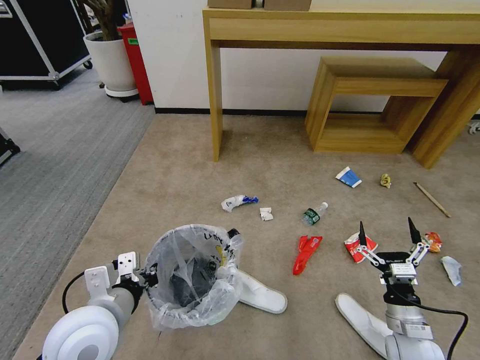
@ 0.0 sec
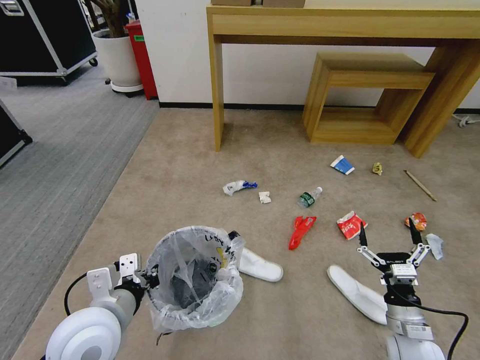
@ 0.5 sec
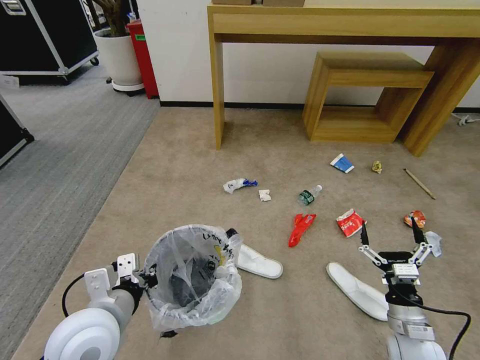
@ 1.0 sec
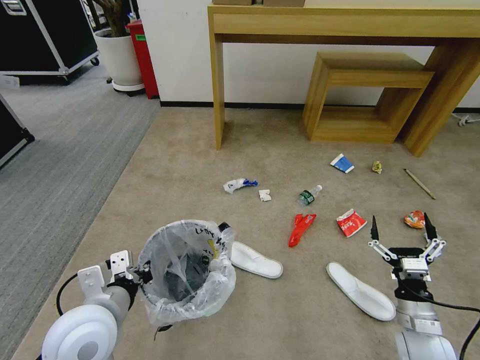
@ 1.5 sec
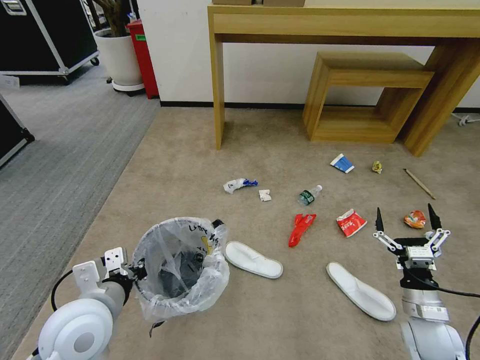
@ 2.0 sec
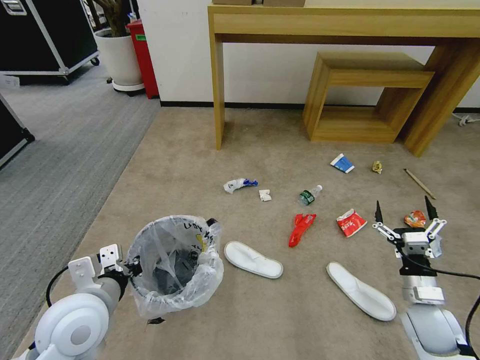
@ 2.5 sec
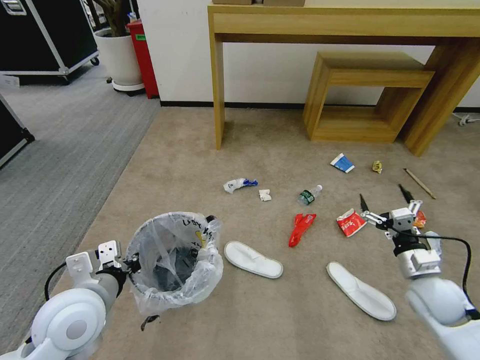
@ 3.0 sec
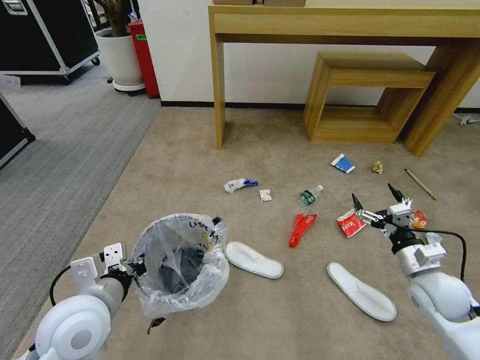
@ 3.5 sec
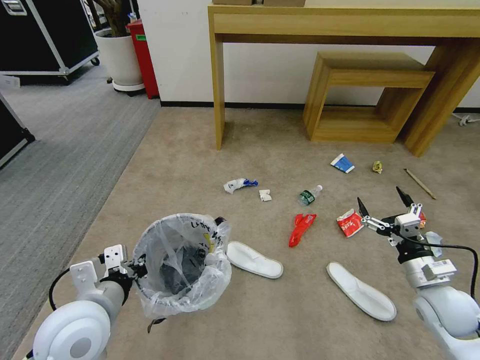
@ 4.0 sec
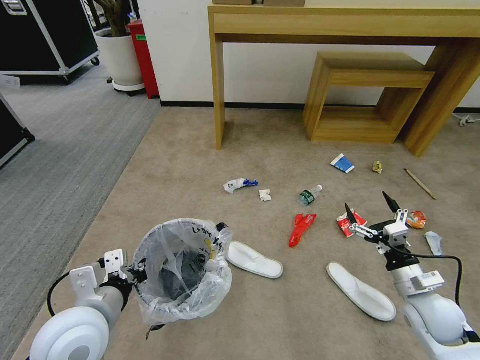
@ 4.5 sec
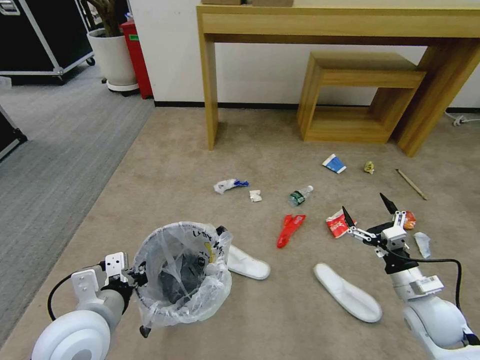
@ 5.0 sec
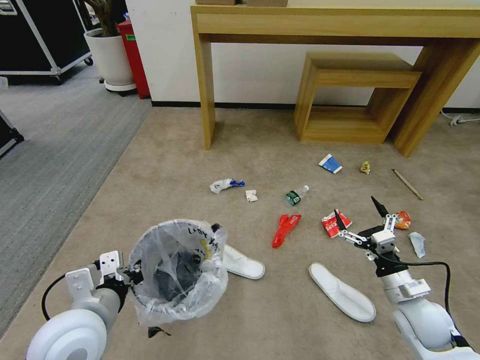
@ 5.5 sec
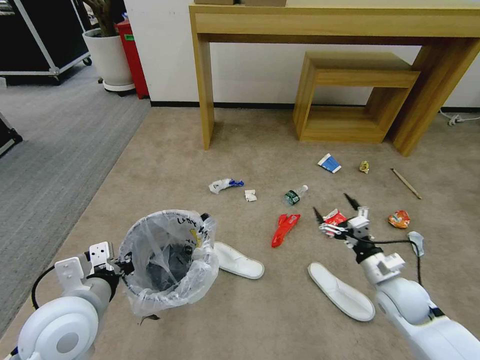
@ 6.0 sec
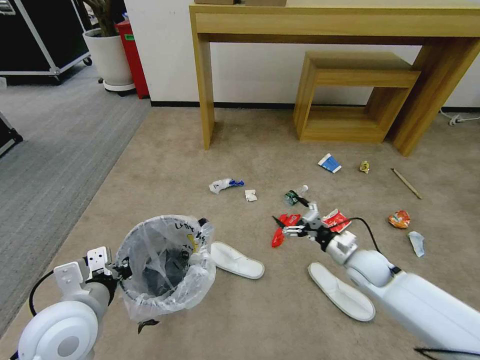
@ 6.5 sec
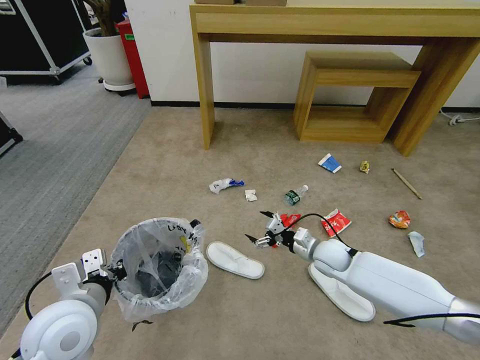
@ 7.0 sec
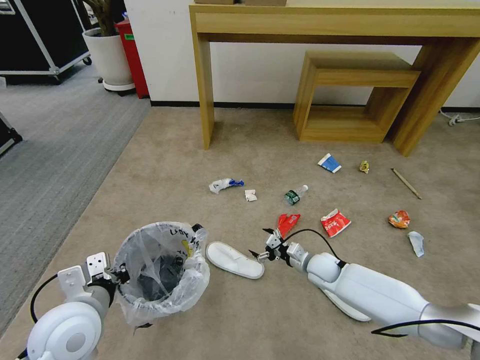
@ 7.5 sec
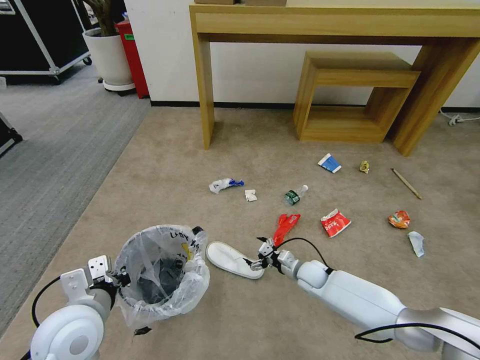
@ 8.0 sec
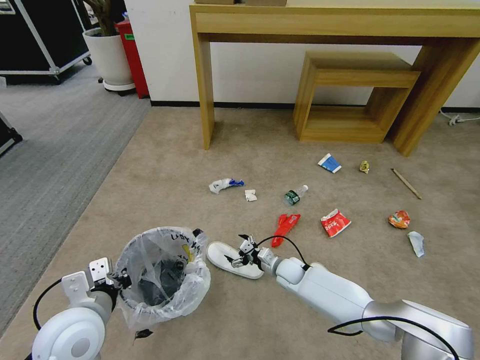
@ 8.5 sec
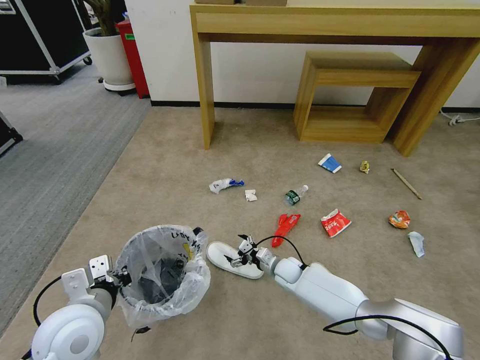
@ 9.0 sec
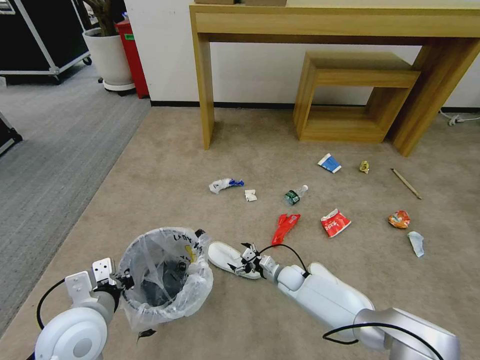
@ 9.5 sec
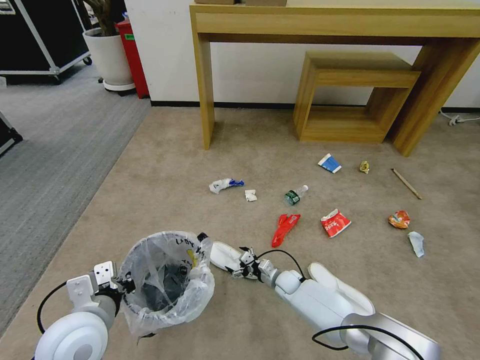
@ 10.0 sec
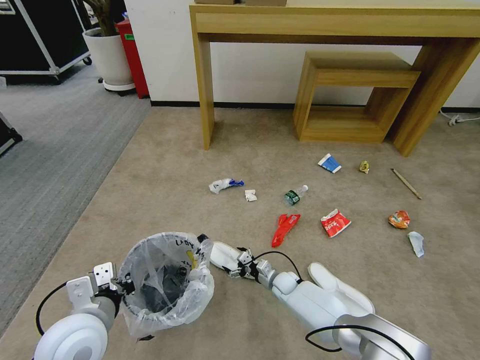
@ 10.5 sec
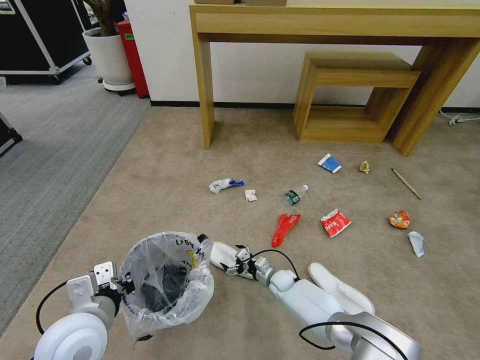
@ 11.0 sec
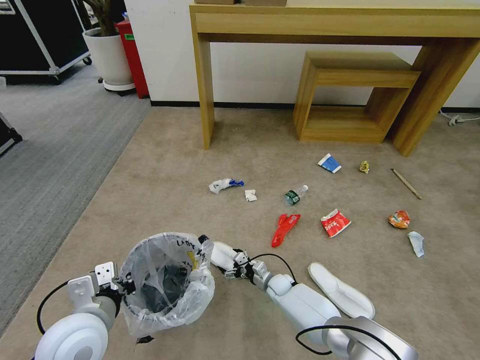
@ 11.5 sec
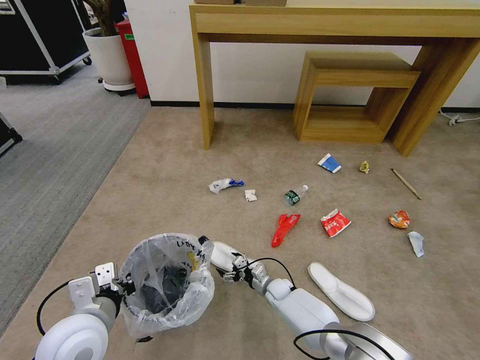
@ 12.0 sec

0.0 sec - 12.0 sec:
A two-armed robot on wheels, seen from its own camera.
Task of the whole recording: Pick up the trash bin and place the garbage on the floor into it.
2.0 sec - 4.0 sec: The right gripper is displaced upward by some 5 cm.
4.0 sec - 6.0 sec: The right gripper goes approximately 5 cm to the left.
6.0 sec - 8.0 sec: The right gripper goes some 25 cm downward, to the left and forward.
8.0 sec - 10.0 sec: The right gripper goes roughly 10 cm downward and to the left.
10.0 sec - 12.0 sec: The grippers make only small movements.

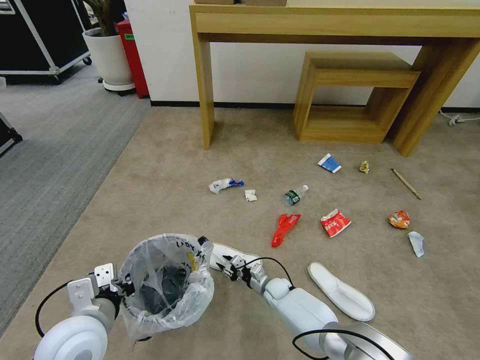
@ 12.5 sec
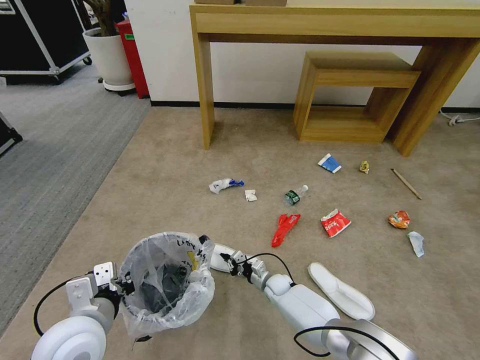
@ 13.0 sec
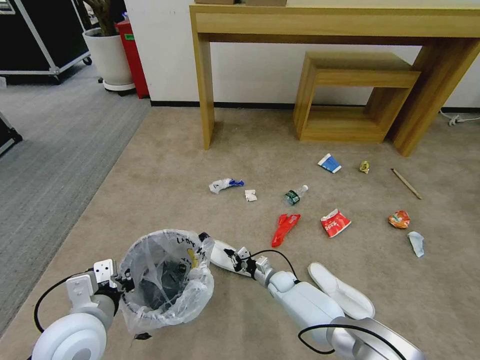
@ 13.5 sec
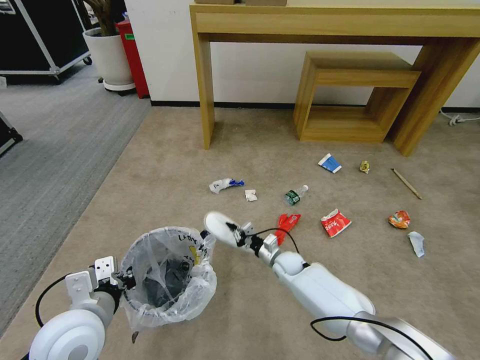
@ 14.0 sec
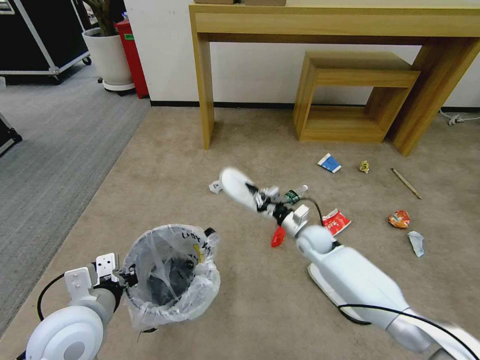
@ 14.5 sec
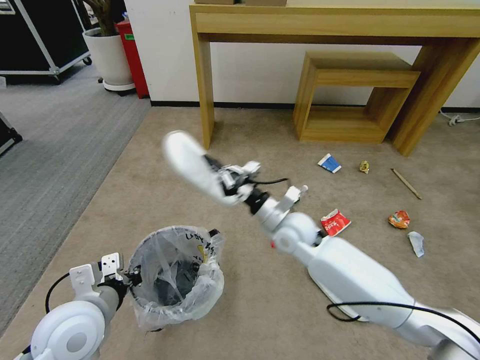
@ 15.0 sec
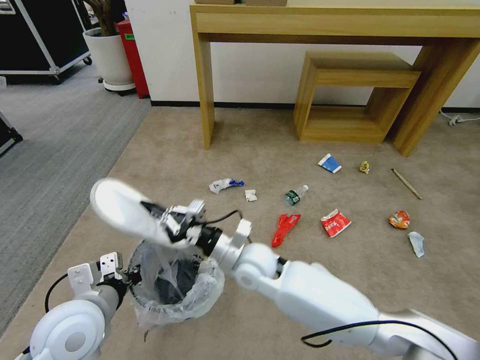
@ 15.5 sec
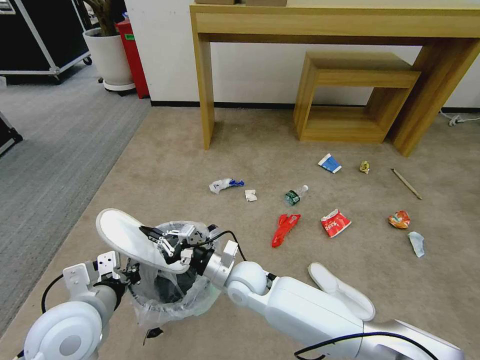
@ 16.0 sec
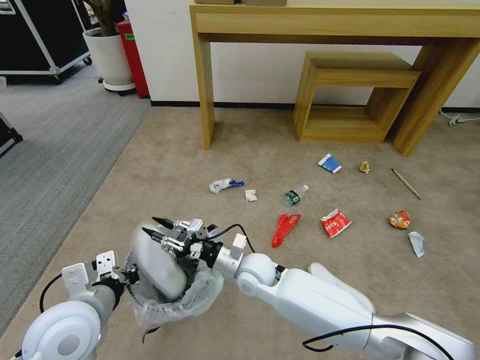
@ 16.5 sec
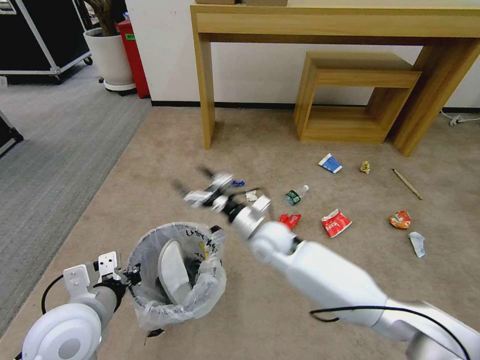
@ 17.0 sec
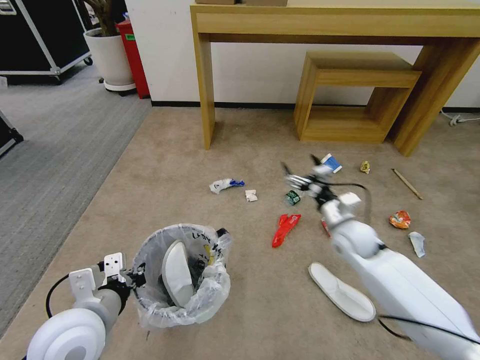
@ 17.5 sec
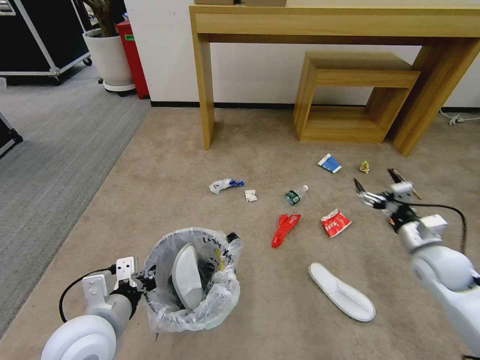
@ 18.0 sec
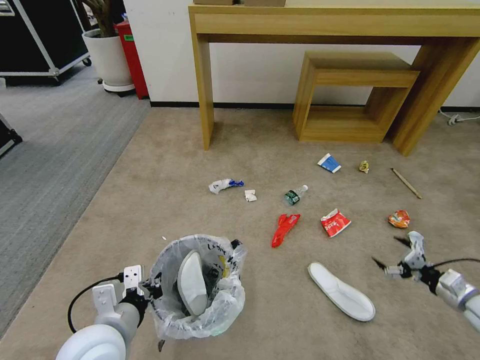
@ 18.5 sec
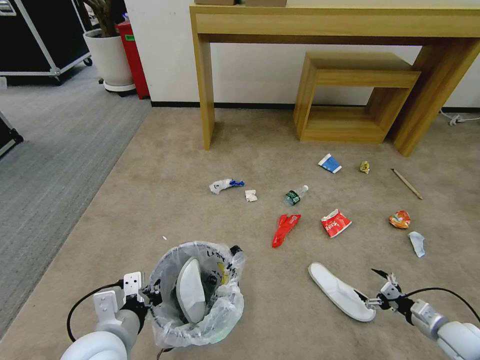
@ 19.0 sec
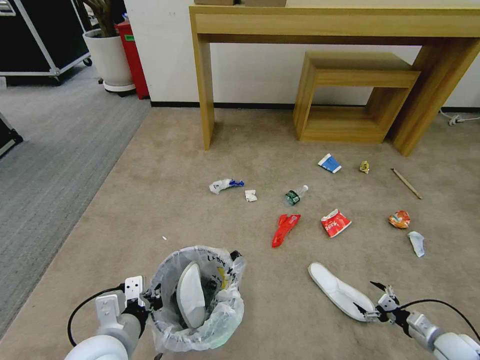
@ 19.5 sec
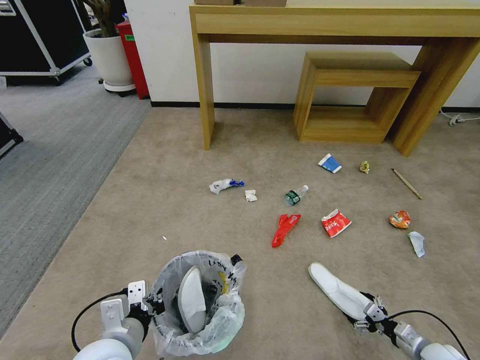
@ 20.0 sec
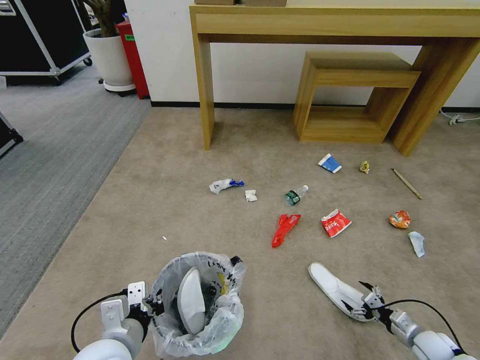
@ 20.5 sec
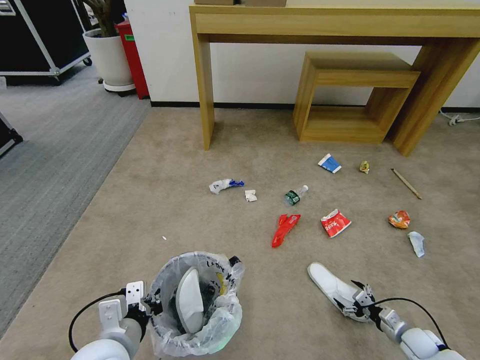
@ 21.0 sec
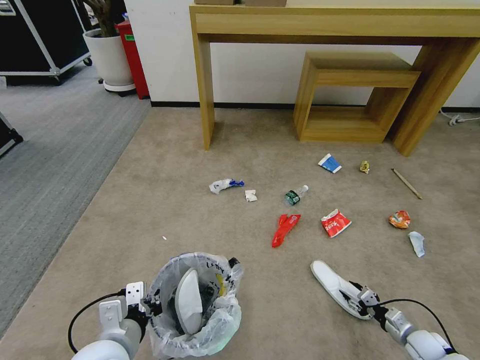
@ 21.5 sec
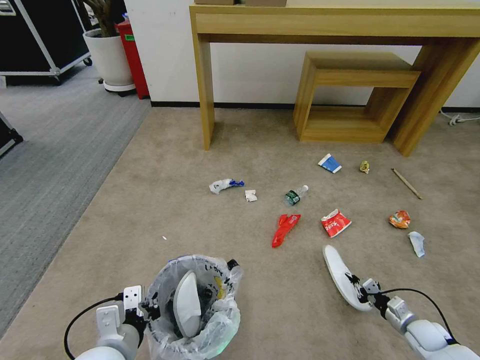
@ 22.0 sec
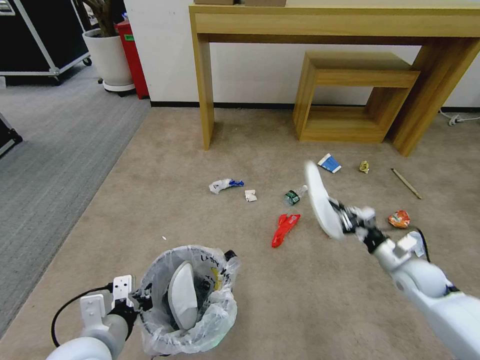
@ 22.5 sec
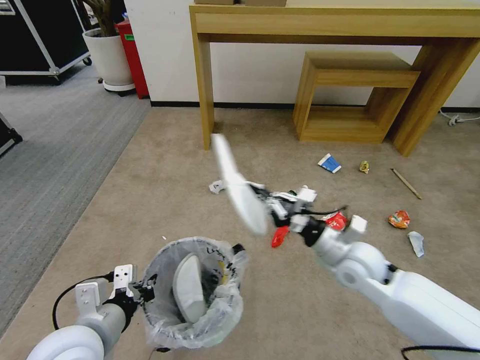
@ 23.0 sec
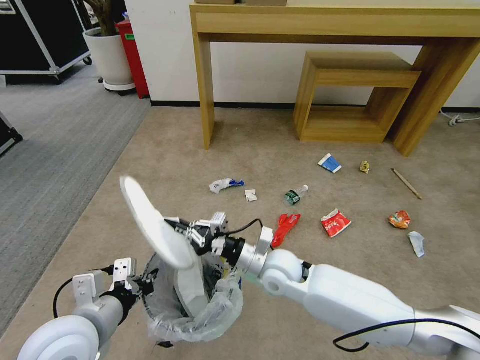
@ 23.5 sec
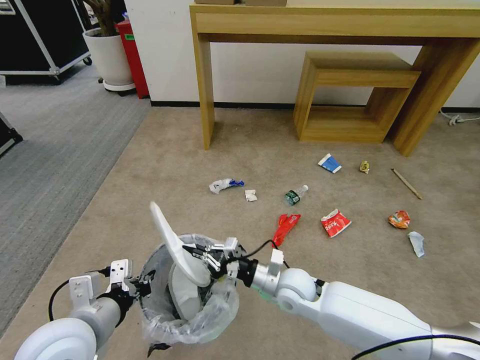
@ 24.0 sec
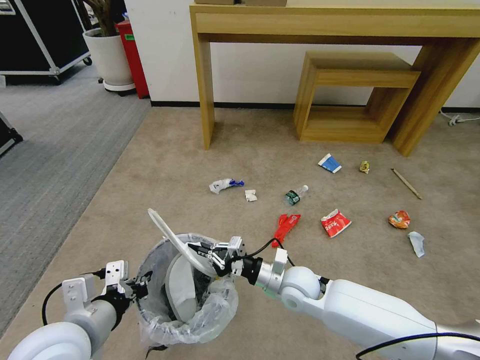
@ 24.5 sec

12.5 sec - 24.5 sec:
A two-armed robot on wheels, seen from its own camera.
Task of the whole recording: Pick up the trash bin and place the garbage on the floor into it.
12.5 sec - 14.5 sec: The right gripper goes roughly 20 cm upward and to the right, and closes.
14.5 sec - 16.5 sec: The right gripper is displaced to the left and backward by about 20 cm, and opens up.
16.5 sec - 18.5 sec: The left gripper shifts by about 5 cm. Meanwhile the right gripper is displaced to the right by approximately 50 cm, and opens.
18.5 sec - 20.5 sec: The right gripper moves downward, some 15 cm.
20.5 sec - 22.5 sec: The right gripper goes some 20 cm upward, forward and to the left, and closes its fingers.
22.5 sec - 24.5 sec: The left gripper moves approximately 5 cm; the right gripper shifts about 30 cm to the left.

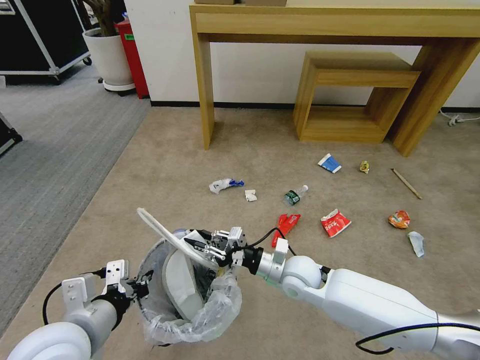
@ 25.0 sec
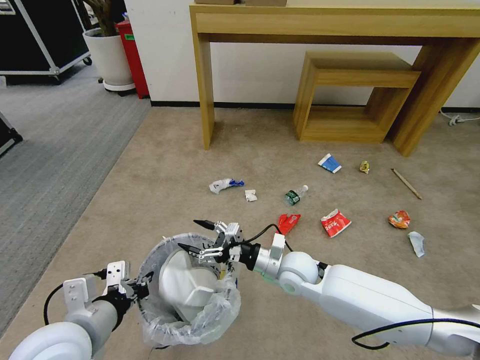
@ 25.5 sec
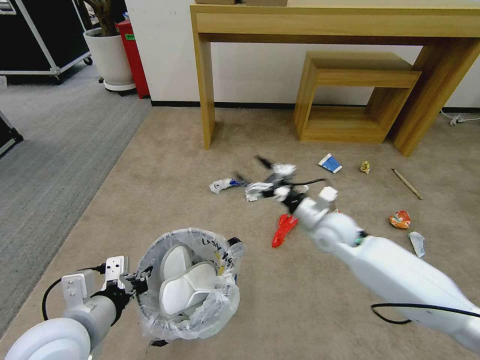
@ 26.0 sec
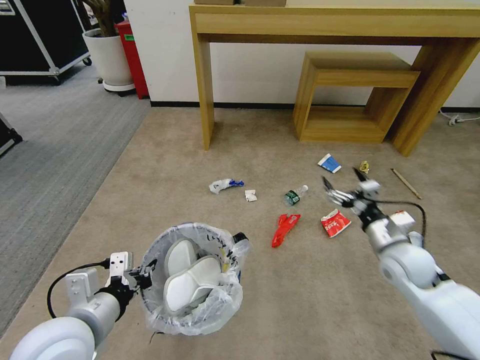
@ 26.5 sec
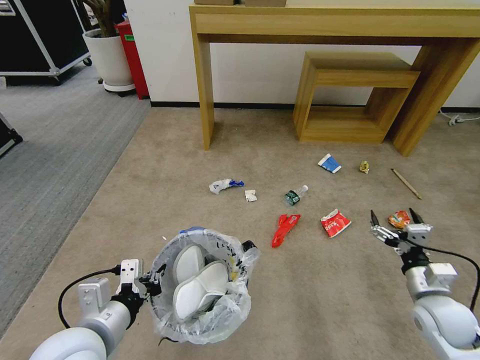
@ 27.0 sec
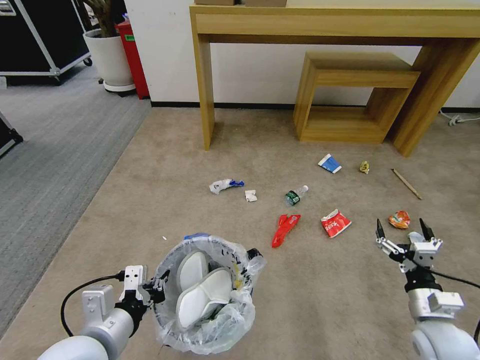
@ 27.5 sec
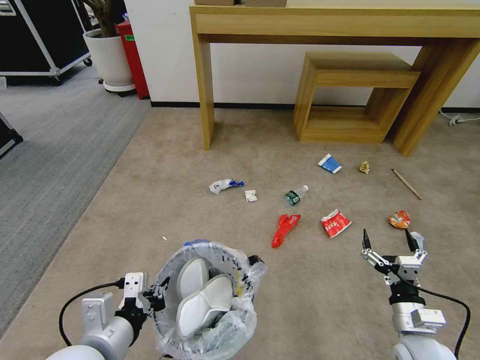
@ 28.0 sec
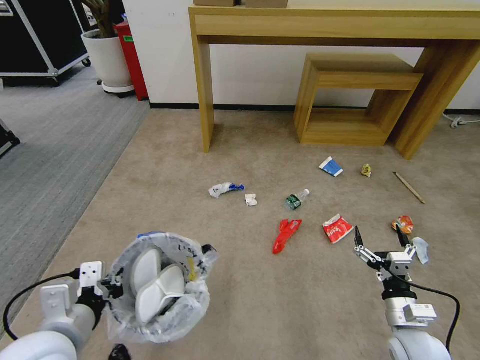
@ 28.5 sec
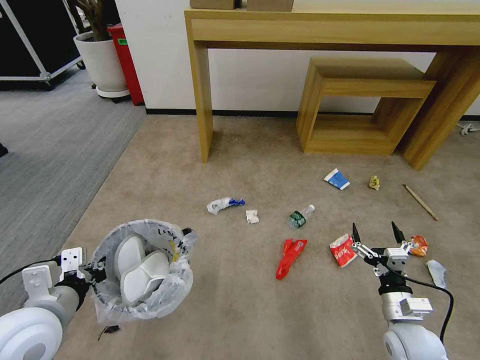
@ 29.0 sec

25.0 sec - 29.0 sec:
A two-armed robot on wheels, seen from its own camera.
Task of the whole recording: Pick up the trash bin and place the garbage on the floor into it.
25.0 sec - 27.0 sec: The right gripper moves to the right, approximately 25 cm, and opens up.
27.0 sec - 29.0 sec: The right gripper moves to the left and downward, about 10 cm. Meanwhile the left gripper travels to the left by about 5 cm.
